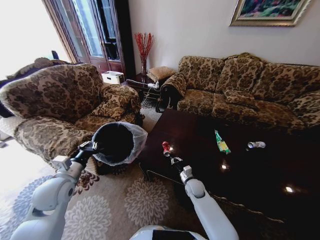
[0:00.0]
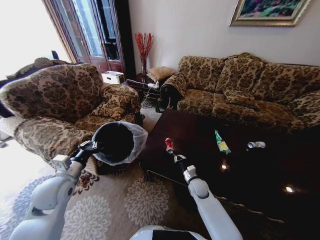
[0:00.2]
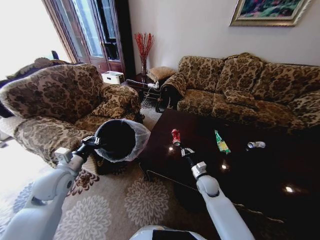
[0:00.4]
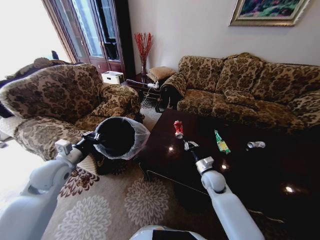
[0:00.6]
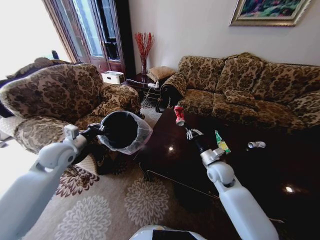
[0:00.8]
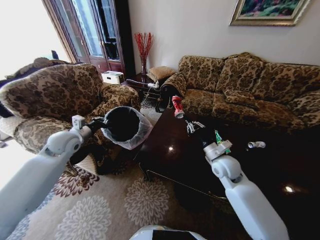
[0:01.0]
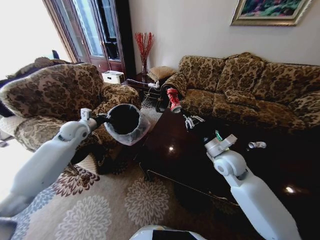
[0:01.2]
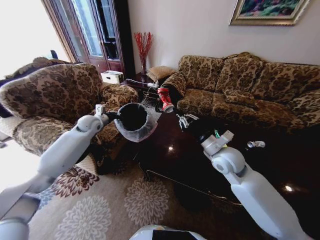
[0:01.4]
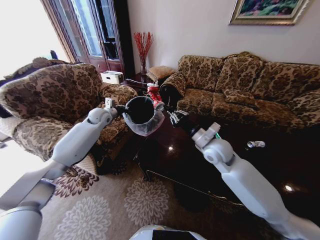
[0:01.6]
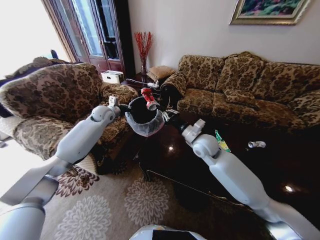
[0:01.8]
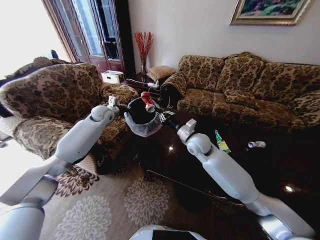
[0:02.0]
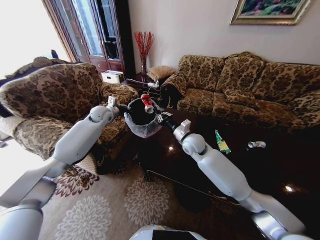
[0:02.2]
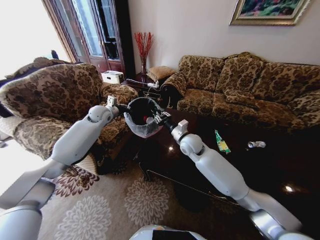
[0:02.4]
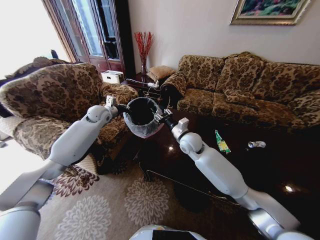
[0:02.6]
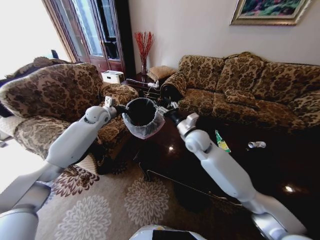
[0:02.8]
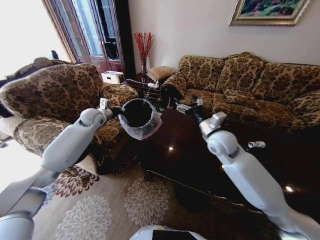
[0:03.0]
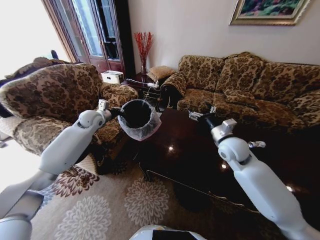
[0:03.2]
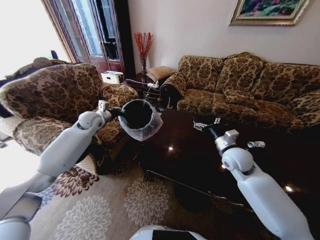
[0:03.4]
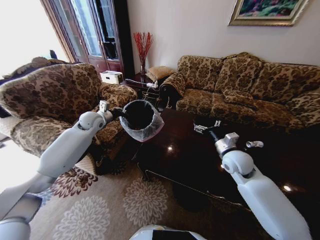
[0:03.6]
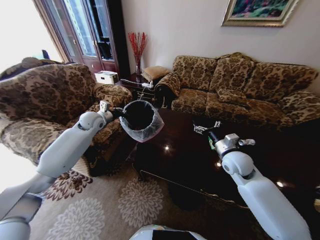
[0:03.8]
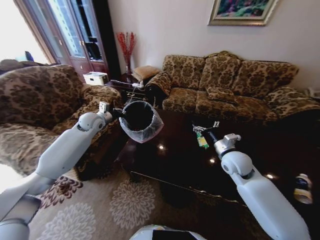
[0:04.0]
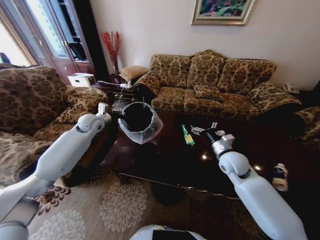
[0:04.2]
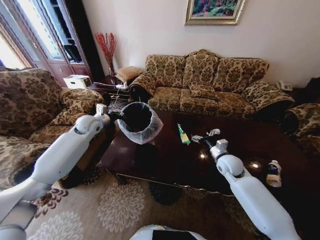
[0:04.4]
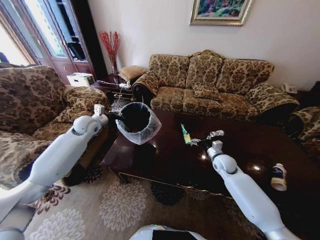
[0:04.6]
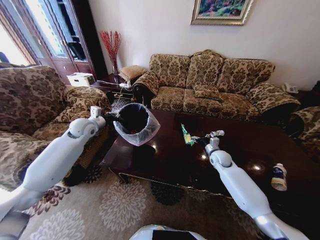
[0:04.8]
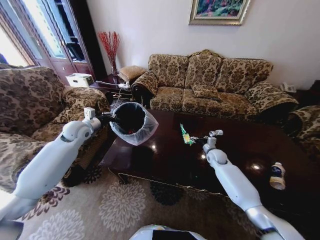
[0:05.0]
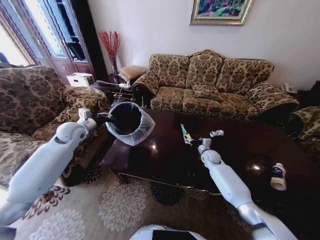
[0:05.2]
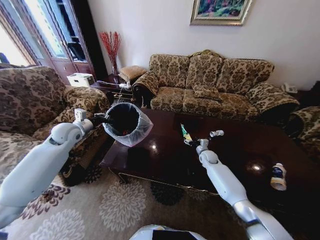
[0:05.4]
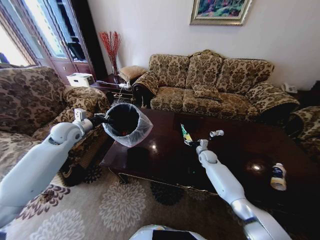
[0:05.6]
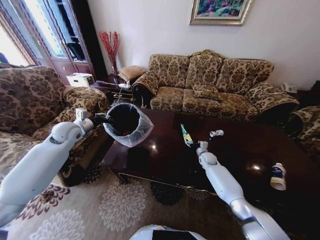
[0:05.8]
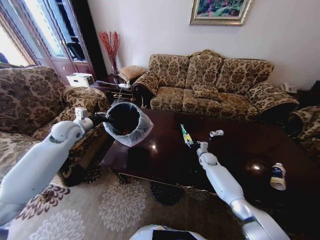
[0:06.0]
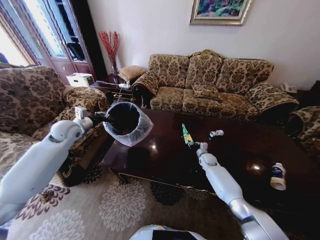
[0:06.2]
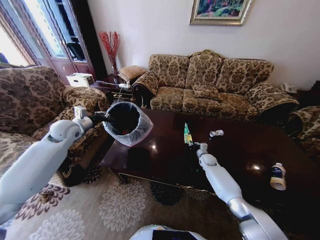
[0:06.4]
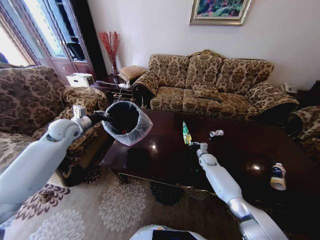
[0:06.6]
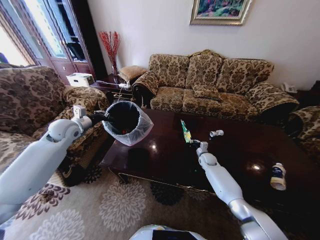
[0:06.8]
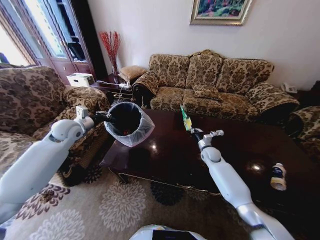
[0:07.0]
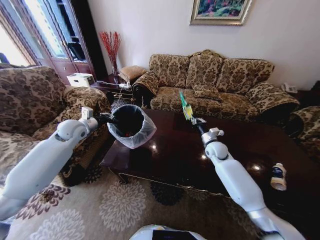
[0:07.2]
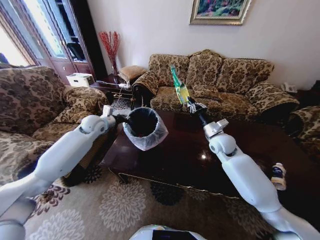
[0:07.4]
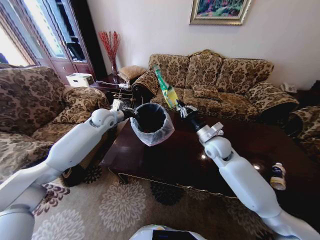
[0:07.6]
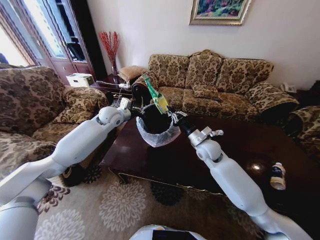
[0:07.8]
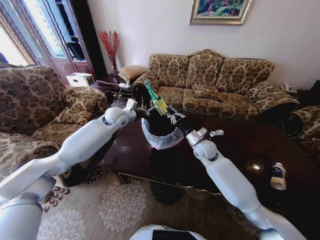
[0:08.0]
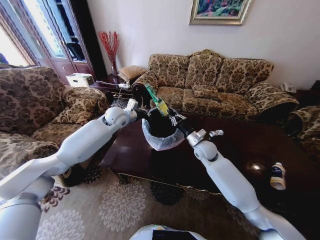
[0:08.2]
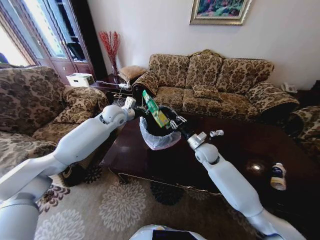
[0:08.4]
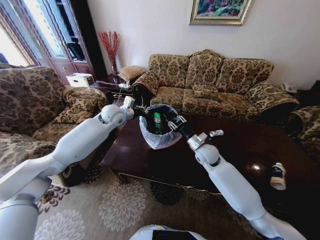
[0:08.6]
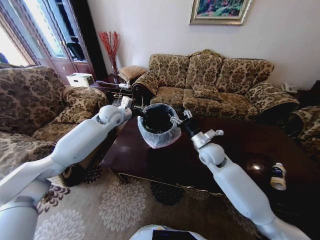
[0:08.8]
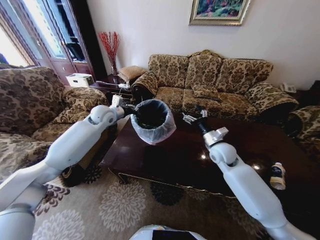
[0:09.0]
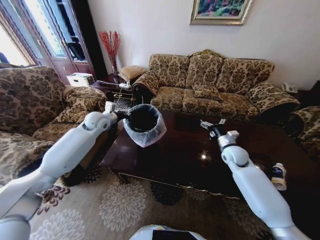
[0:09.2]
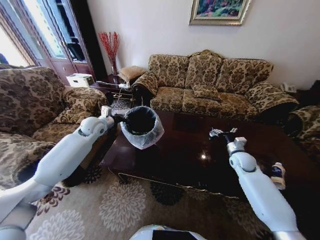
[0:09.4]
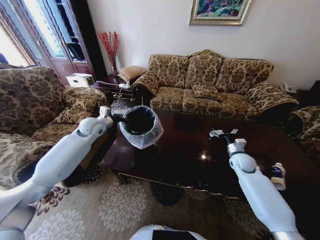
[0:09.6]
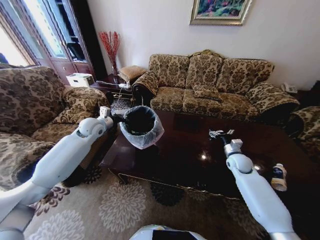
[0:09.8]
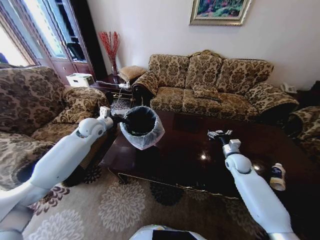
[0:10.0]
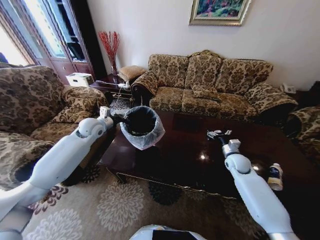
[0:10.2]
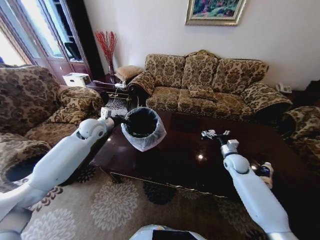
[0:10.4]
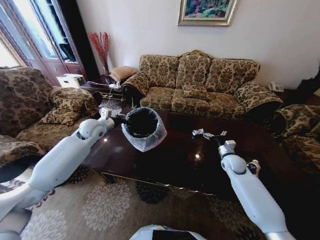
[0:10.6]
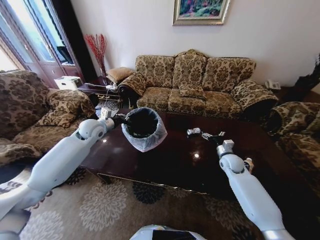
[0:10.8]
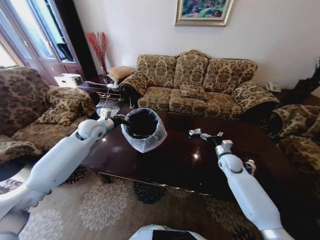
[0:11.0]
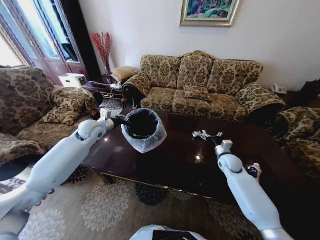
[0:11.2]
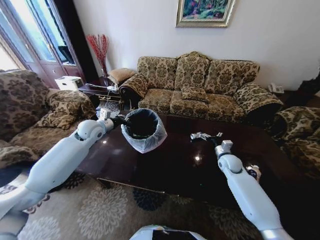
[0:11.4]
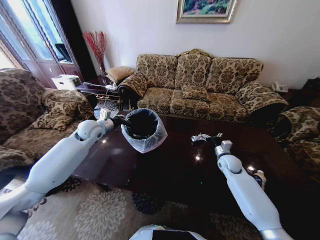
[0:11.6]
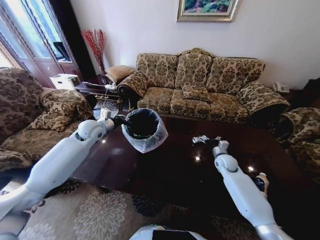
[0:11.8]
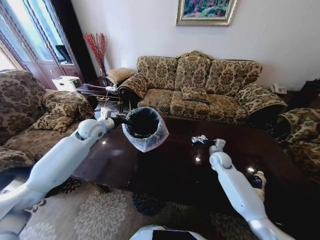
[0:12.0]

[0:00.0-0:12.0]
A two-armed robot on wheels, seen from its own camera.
Task of the whole recording: Move to the front of the table and place the trash on the table into the trash bin.
0.0 to 1.6 s: The right gripper travels upward by roughly 30 cm, while the left gripper shifts roughly 30 cm forward.
1.6 to 3.0 s: The right gripper moves approximately 10 cm to the left and comes back, and opens.
3.0 to 4.4 s: The right gripper moves downward and to the right, about 15 cm.
4.4 to 6.0 s: The left gripper moves backward and to the left, some 10 cm; the right gripper is displaced downward and forward by about 20 cm, and closes its fingers.
6.0 to 7.6 s: The right gripper is displaced upward by some 25 cm, and closes. The left gripper is displaced to the right and forward by about 15 cm.
7.6 to 9.0 s: The right gripper shifts by about 5 cm, and opens its fingers.
9.0 to 10.4 s: The left gripper changes place by some 5 cm. The right gripper shifts about 15 cm to the right and downward.
10.4 to 12.0 s: The right gripper heads to the left, covering roughly 5 cm.

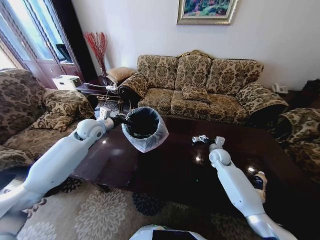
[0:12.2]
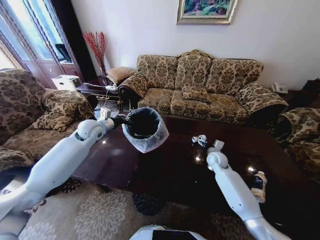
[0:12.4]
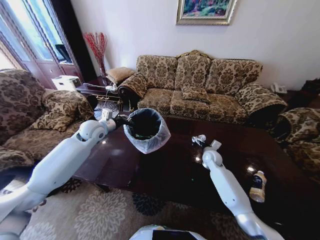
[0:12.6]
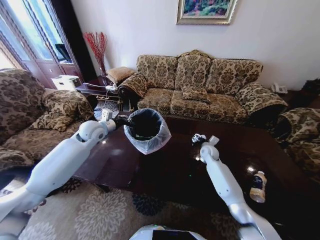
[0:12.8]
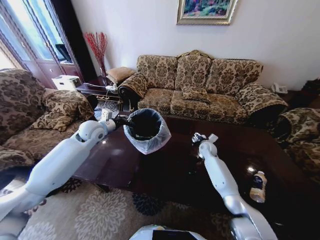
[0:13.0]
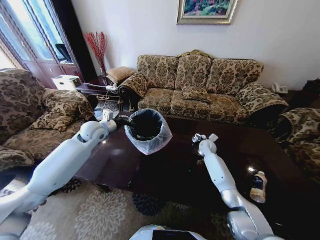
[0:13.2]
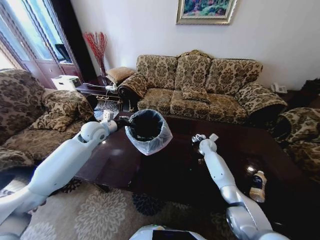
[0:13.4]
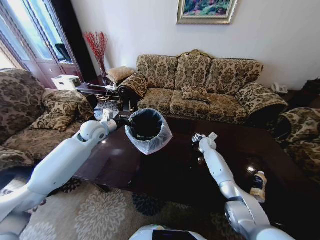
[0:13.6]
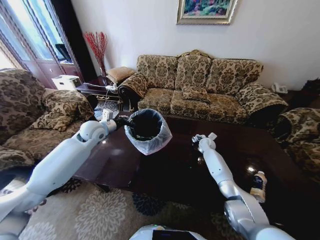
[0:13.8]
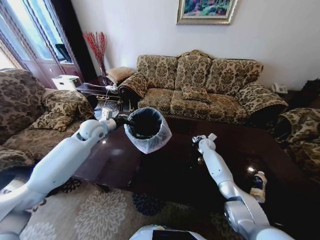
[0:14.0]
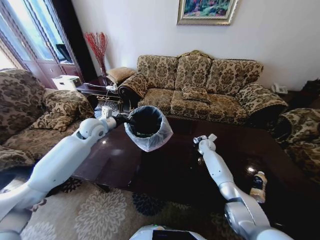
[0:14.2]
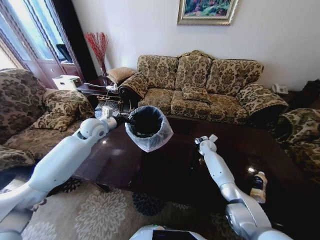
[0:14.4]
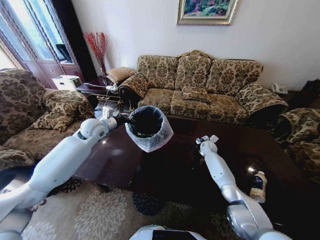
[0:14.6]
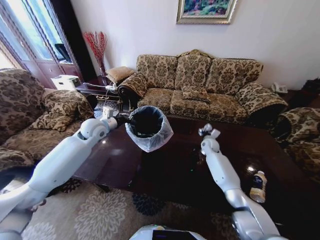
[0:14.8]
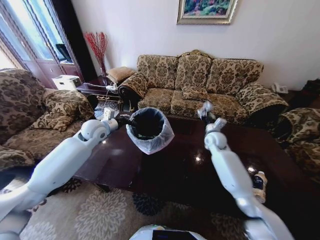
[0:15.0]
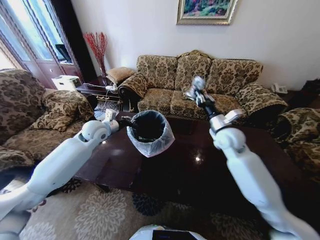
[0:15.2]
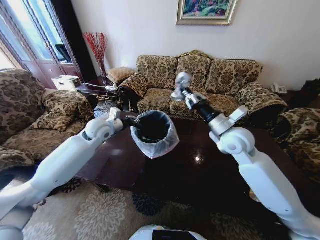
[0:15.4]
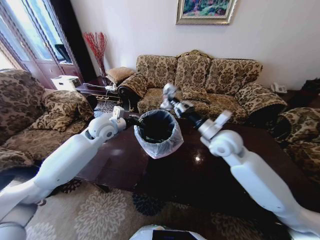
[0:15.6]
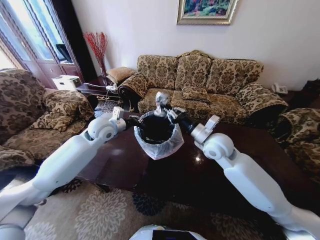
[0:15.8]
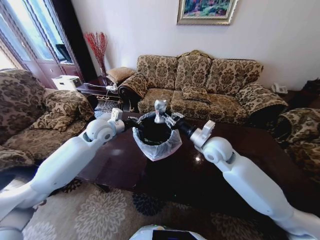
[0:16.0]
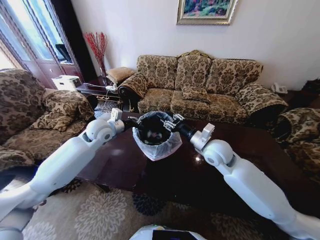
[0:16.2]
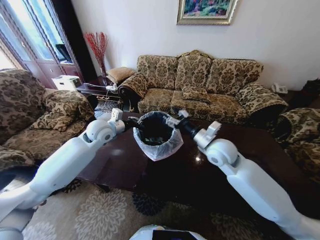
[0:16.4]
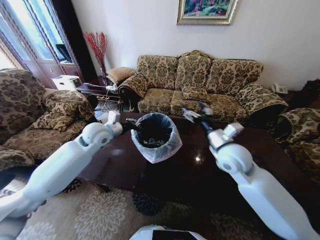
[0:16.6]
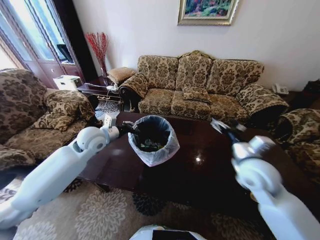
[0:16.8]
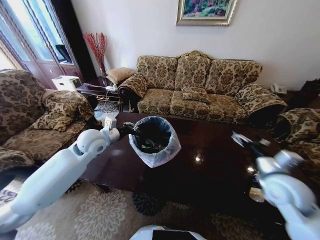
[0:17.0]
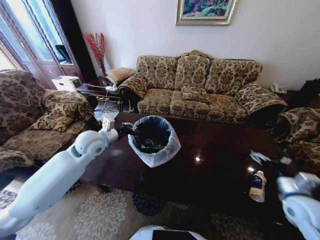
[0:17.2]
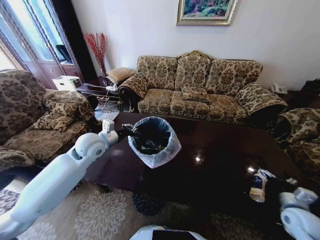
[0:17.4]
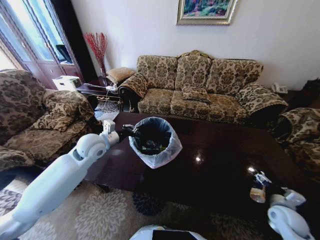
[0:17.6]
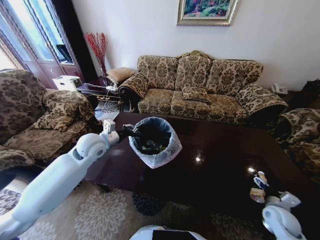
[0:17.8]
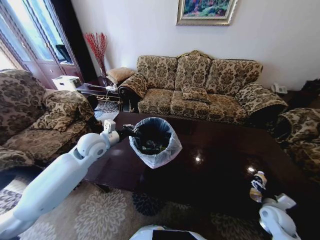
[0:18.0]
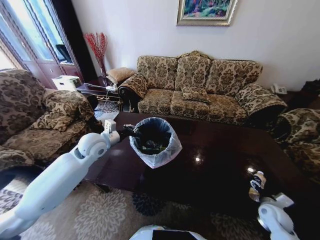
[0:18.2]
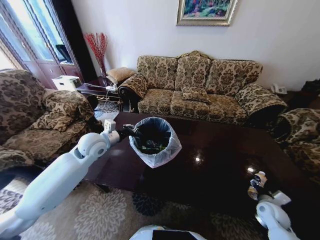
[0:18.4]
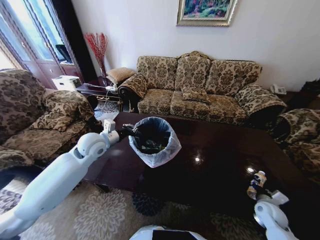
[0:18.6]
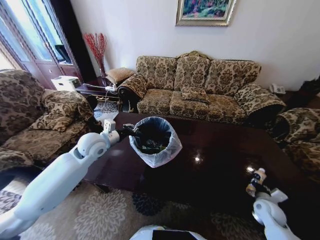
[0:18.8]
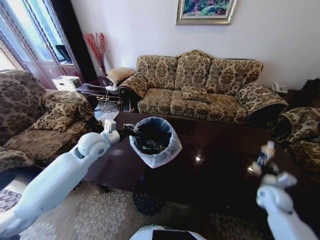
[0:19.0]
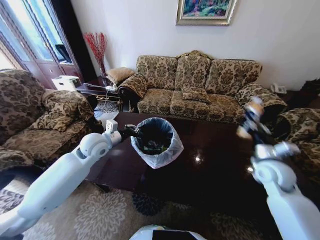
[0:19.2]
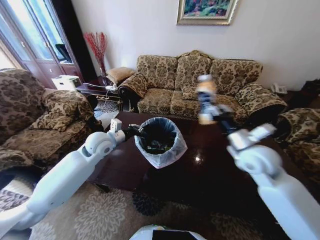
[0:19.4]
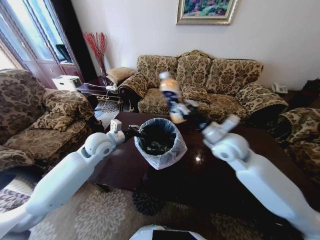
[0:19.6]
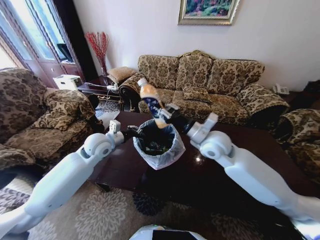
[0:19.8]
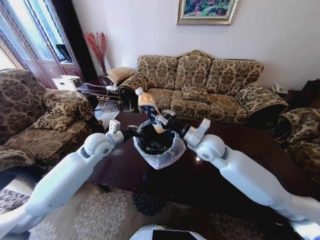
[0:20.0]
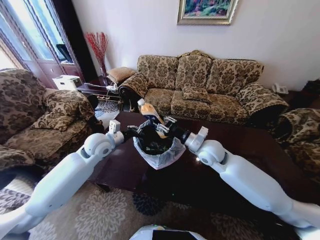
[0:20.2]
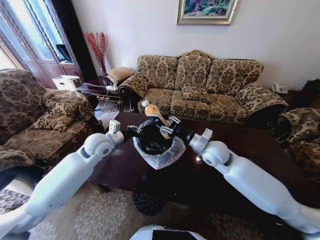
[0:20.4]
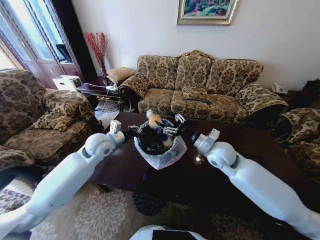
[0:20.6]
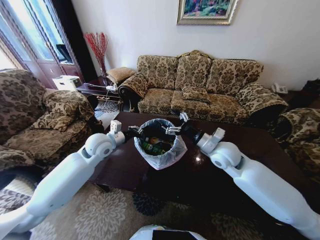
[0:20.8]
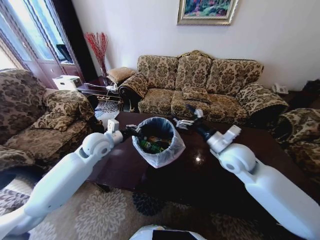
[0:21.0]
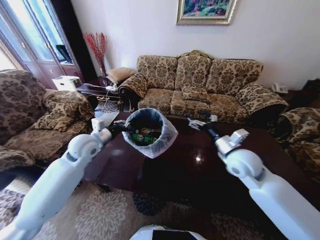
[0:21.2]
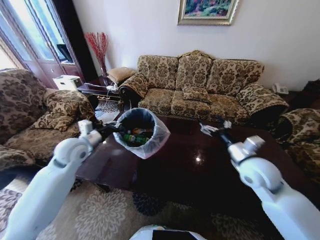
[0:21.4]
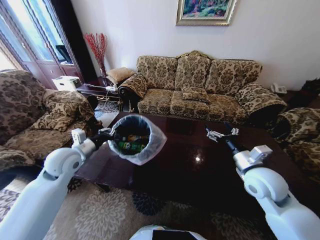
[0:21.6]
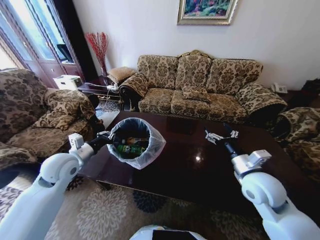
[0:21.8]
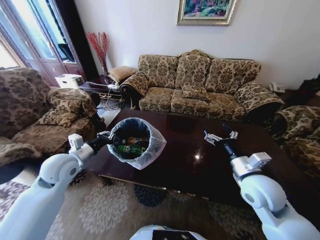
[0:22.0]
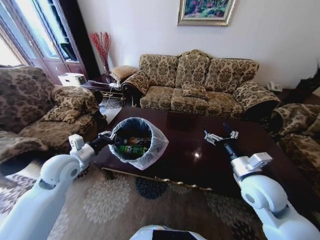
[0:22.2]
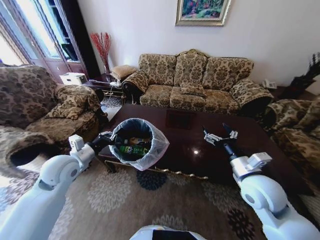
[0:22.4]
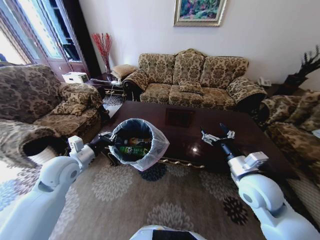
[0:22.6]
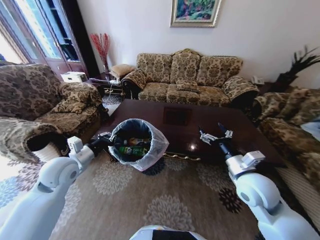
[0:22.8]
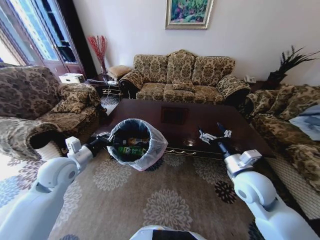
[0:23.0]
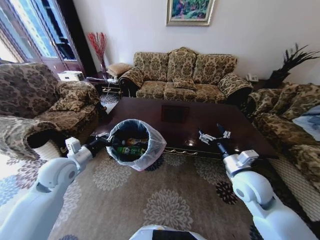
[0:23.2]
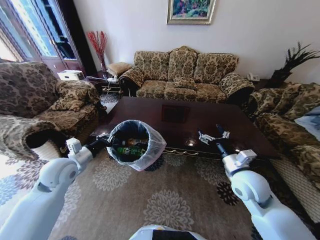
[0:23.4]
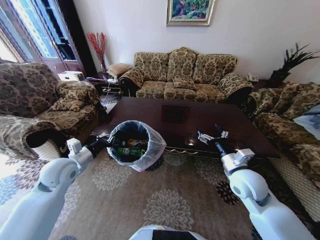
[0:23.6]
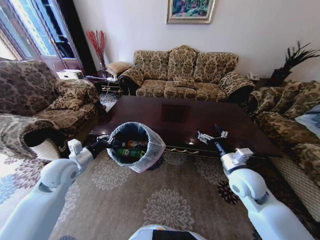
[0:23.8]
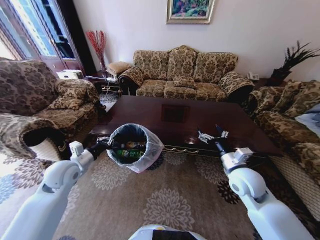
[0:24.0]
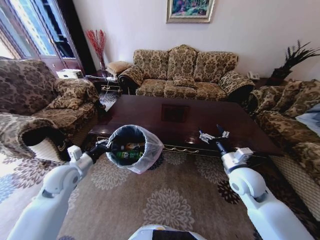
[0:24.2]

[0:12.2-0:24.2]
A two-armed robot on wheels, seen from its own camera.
Task of the whole recording: Move to the front of the table and place the trash on the table into the trash bin.
12.2 to 13.8 s: The right gripper travels forward by some 10 cm.
13.8 to 15.2 s: The right gripper is displaced upward and backward by some 30 cm, and closes.
15.2 to 16.6 s: The right gripper is displaced backward by roughly 10 cm, and opens its fingers.
16.6 to 18.2 s: The right gripper moves downward and to the right, about 35 cm.
18.2 to 19.8 s: The right gripper moves to the left, upward and forward, approximately 40 cm, and closes.
19.8 to 21.2 s: The right gripper travels to the right by approximately 10 cm, and opens.
21.2 to 22.6 s: Both grippers travel together backward, some 10 cm.
22.6 to 24.2 s: The left gripper moves downward, roughly 5 cm. The right gripper changes place by roughly 5 cm.
